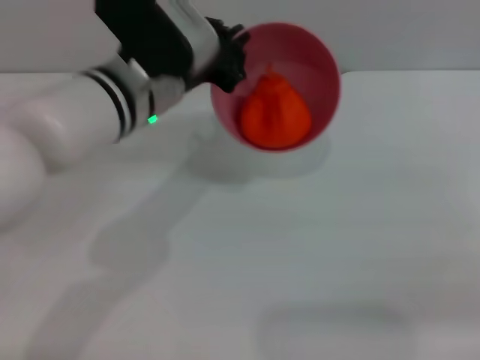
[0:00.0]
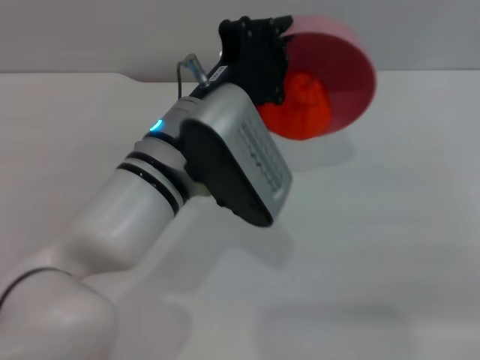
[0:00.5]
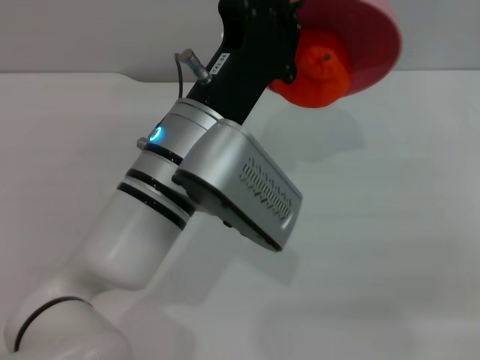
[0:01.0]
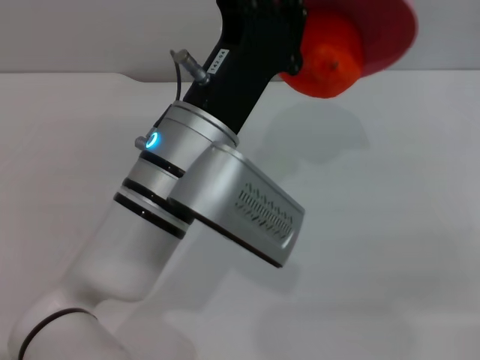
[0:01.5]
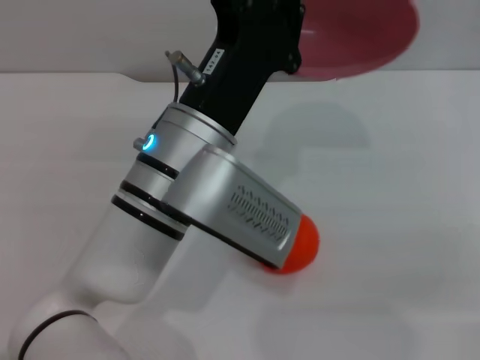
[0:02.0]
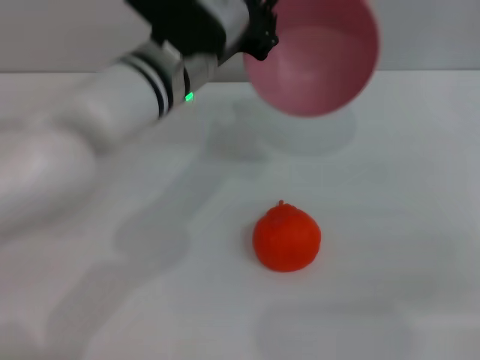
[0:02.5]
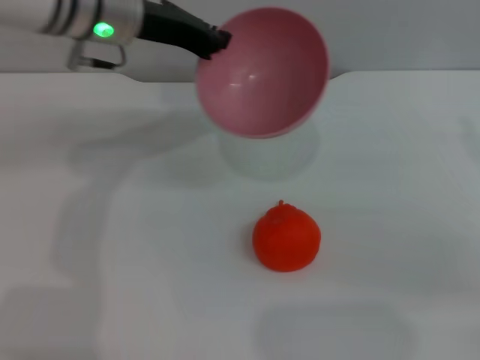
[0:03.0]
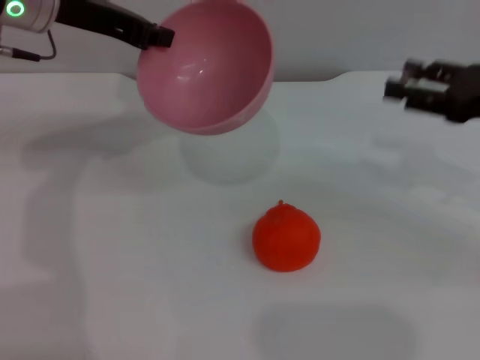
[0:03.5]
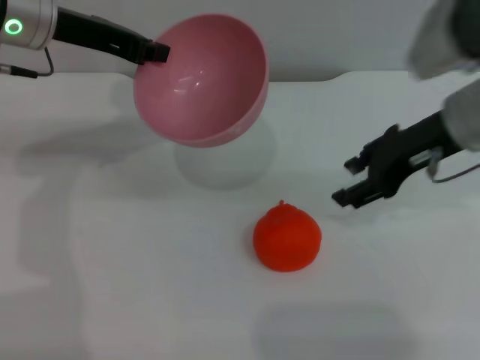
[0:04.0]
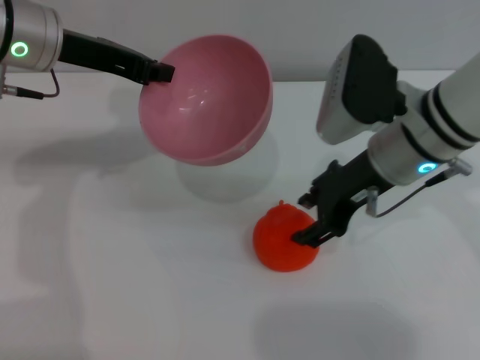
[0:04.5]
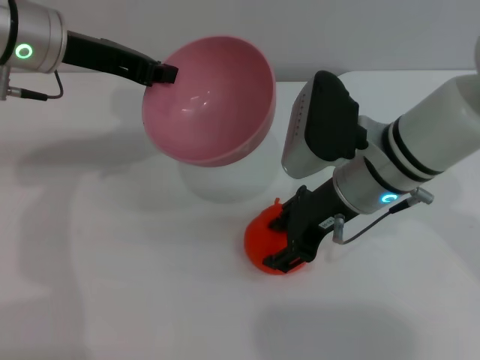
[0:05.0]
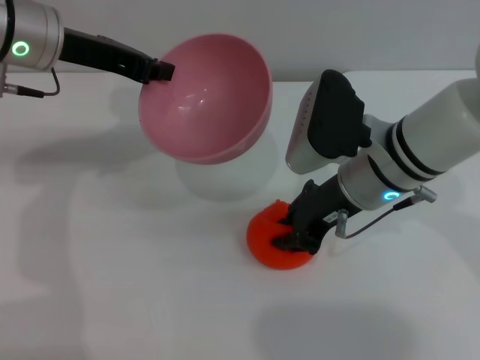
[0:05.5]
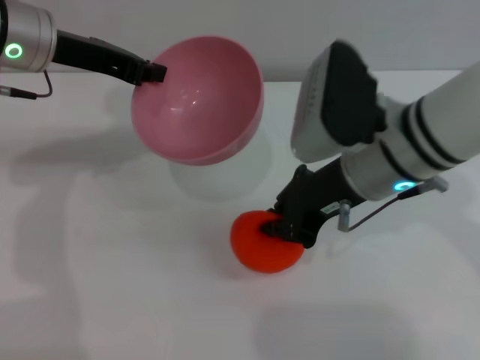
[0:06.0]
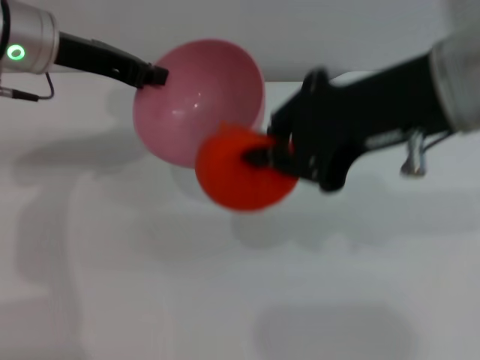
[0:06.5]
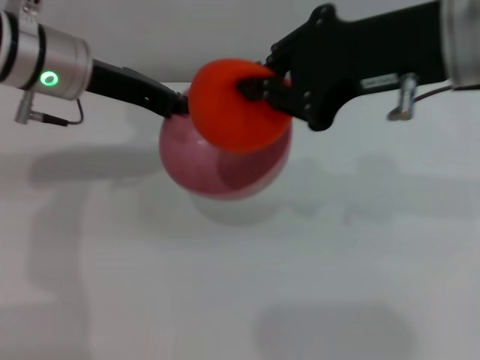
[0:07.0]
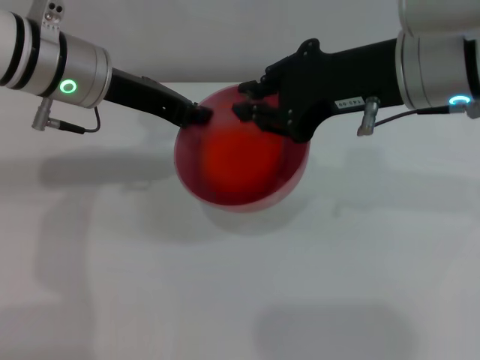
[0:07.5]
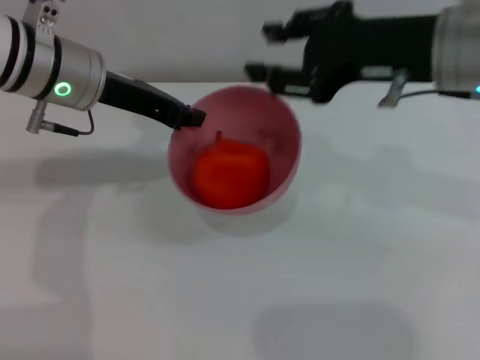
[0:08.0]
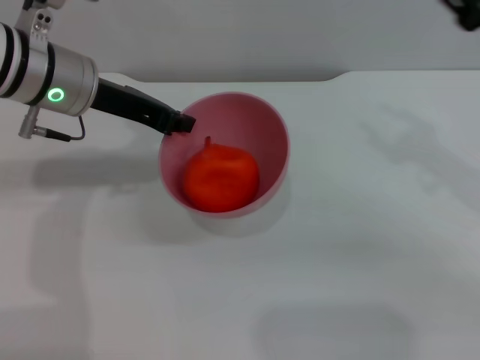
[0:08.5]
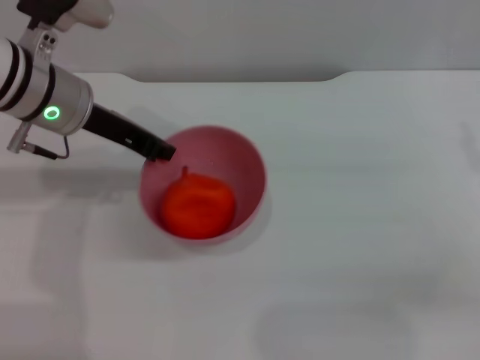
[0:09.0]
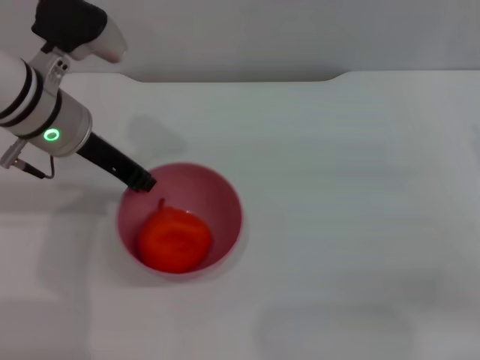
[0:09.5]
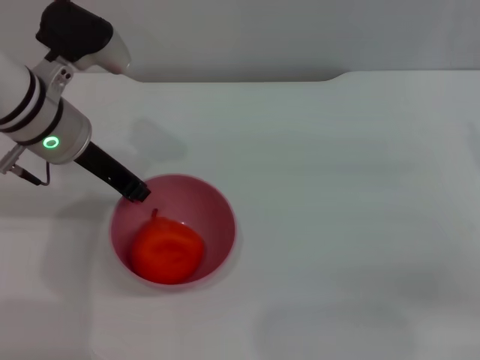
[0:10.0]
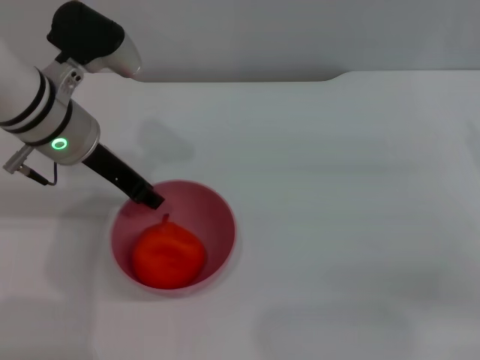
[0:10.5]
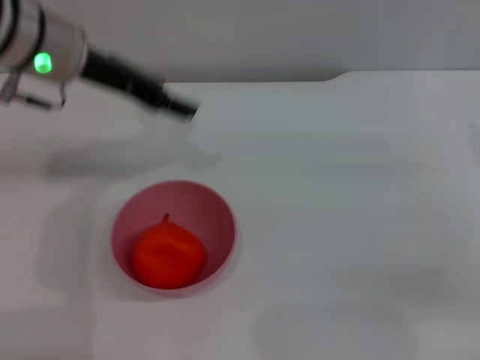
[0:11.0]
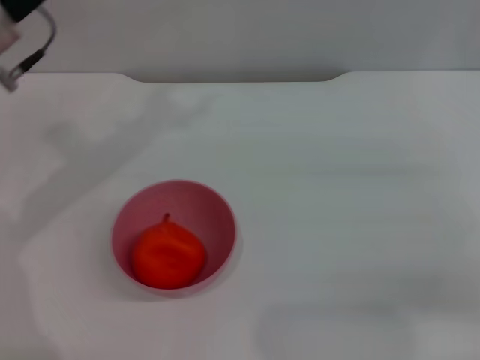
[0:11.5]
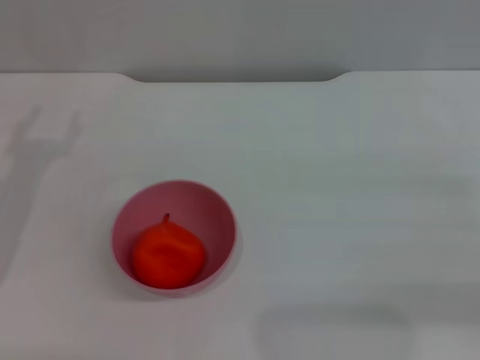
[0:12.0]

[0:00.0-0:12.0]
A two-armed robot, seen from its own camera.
Task of the whole recording: put the orange into the pink bowl and pour it out repeatedly.
Step, 0:00.0 to 0:02.0: Pour the orange out of the bowl.
Step, 0:02.5 to 0:06.5: Pick up the orange with the right gripper.
Step, 0:07.0 to 0:07.5: Place the orange into the bowl.
Step, 0:08.5 to 0:10.5: Place the bowl on the table.
0:00.0 to 0:02.0: The left gripper shifts about 10 cm backward.
0:02.0 to 0:04.0: The right gripper is displaced to the left and forward by approximately 15 cm, while the left gripper moves to the left, forward and upward, roughly 25 cm.
0:04.0 to 0:06.0: The right gripper heads to the left, covering roughly 10 cm, and closes.
0:06.0 to 0:08.0: The right gripper shifts some 10 cm upward and to the right, and opens its fingers.
0:08.0 to 0:10.0: The right gripper shifts approximately 20 cm to the right and downward.
0:10.0 to 0:12.0: The left gripper travels to the left and backward by about 15 cm, and opens its fingers.

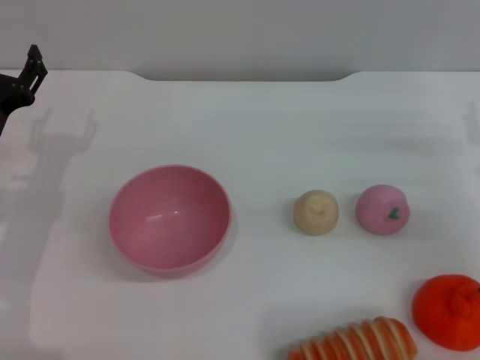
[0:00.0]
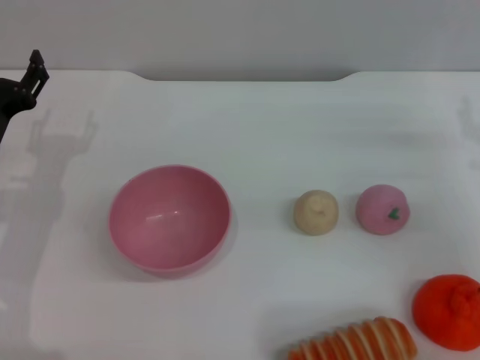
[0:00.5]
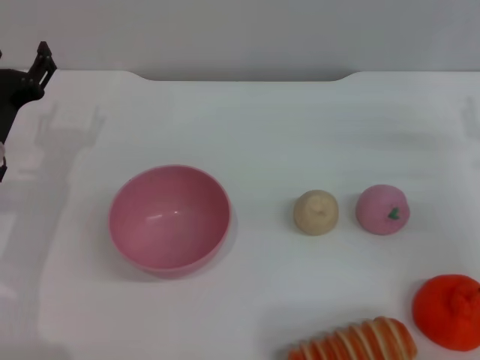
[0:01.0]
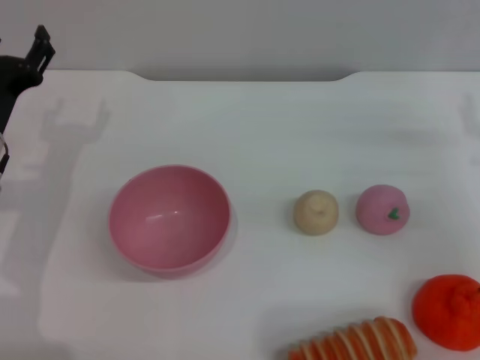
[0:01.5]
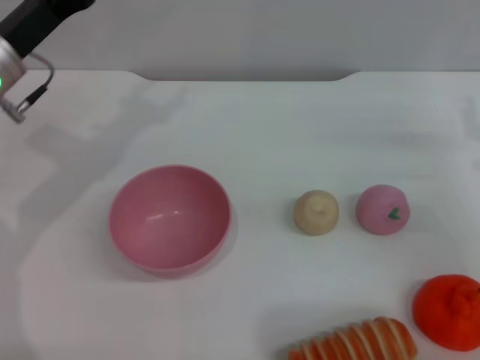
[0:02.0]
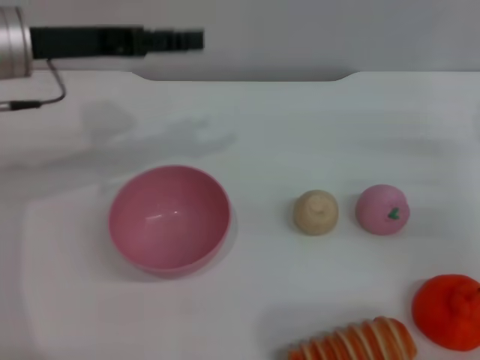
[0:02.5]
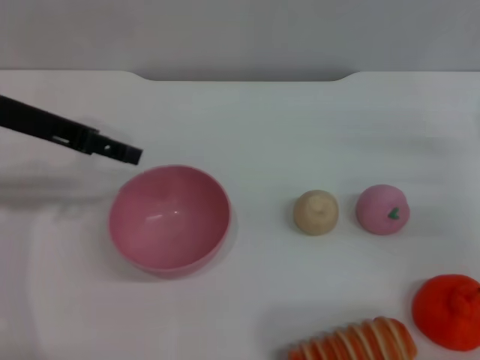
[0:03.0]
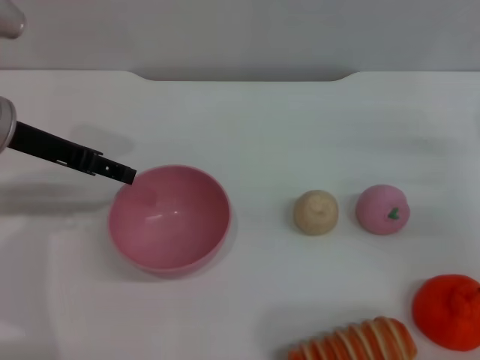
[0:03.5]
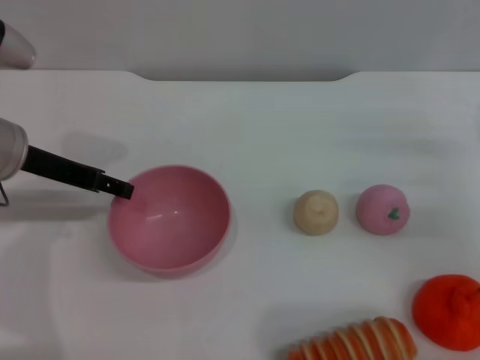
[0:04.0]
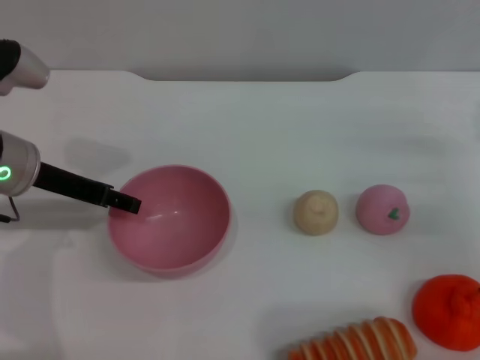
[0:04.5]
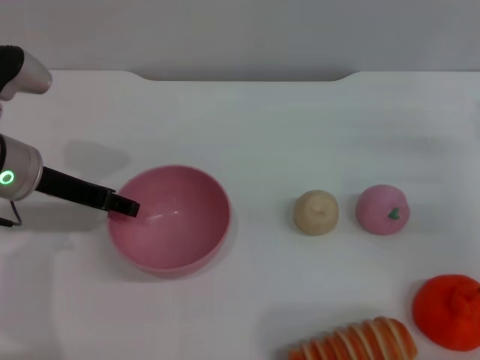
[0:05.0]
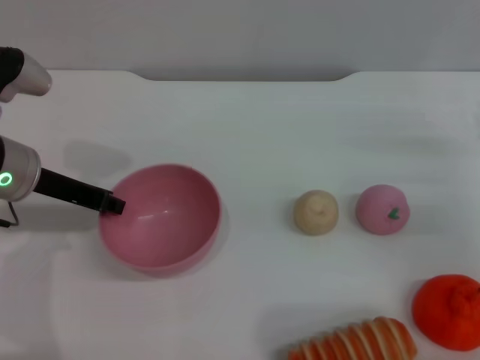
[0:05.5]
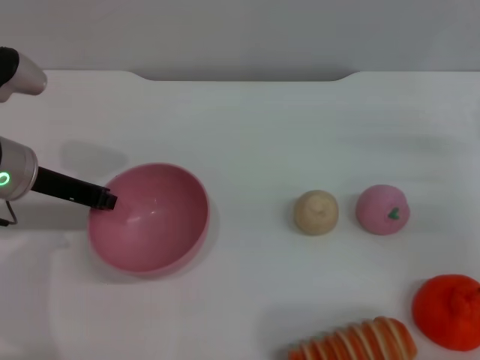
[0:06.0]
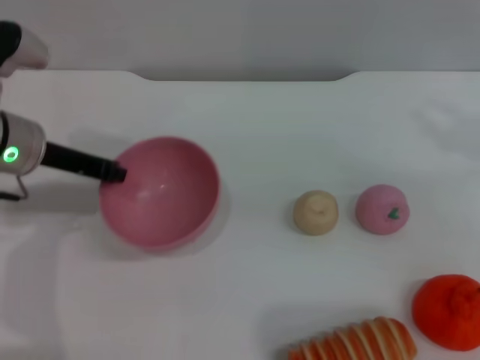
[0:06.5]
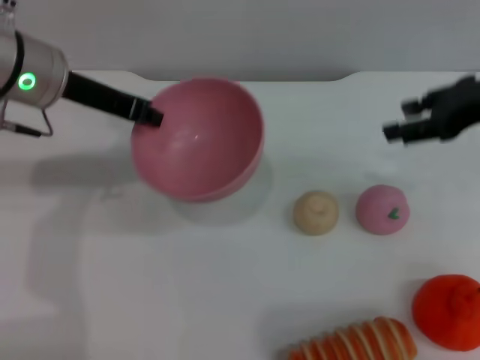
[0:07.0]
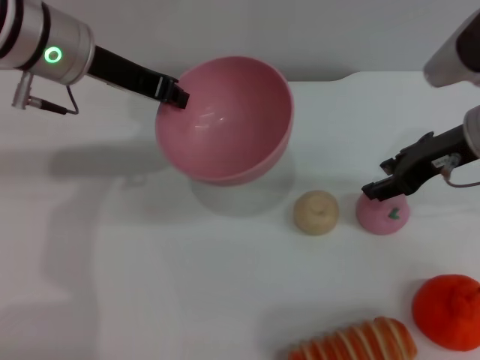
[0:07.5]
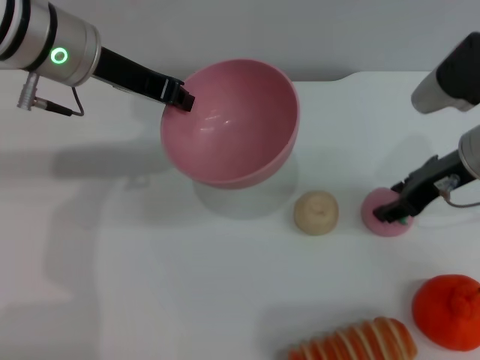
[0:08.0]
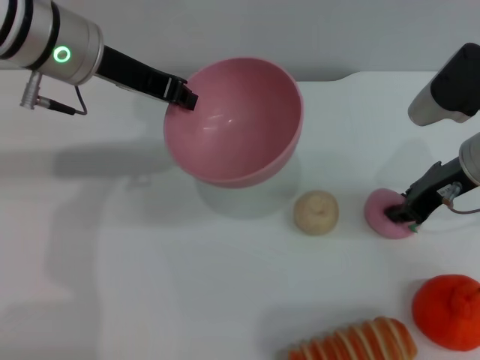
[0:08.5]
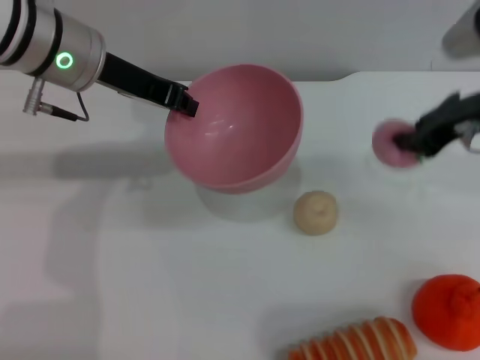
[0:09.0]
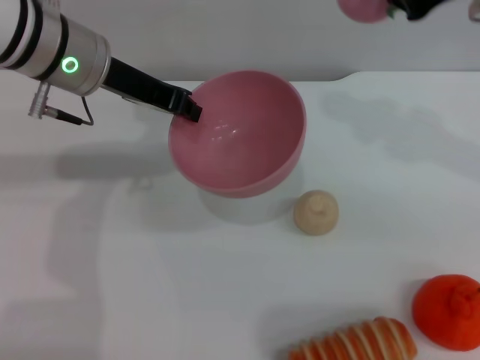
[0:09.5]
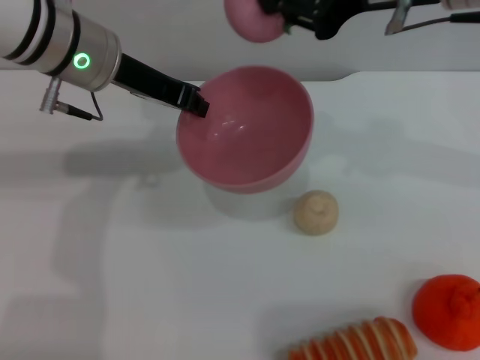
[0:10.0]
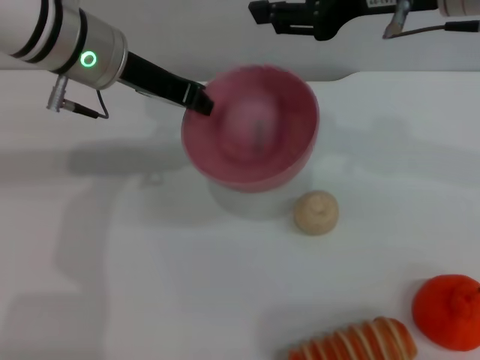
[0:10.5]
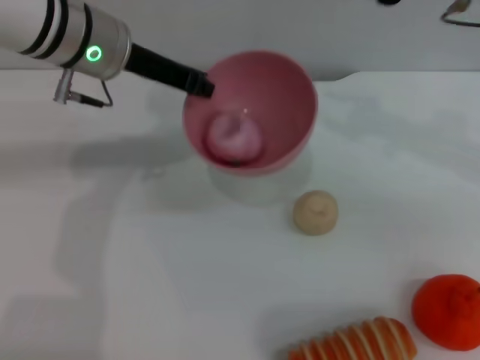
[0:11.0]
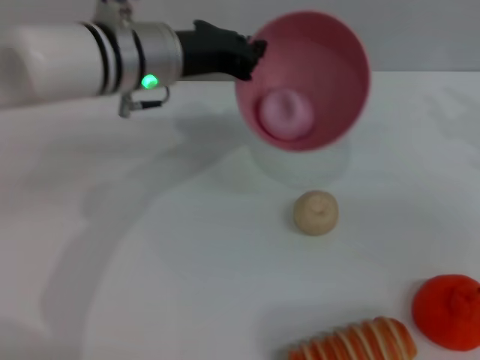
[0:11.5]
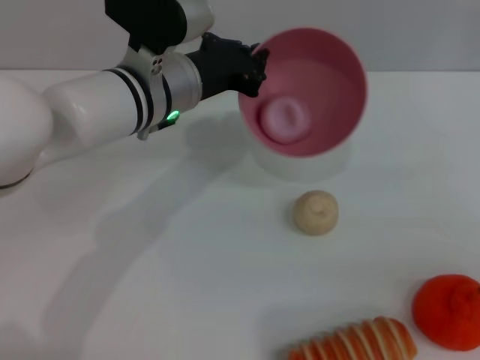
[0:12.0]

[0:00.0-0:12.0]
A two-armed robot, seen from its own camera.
Task of the whole recording: put the peach into the pink bowl and pour it out repeatedly.
Step, 0:00.0 to 0:06.5: Pick up the bowl with the left gripper.
Step, 0:07.0 to 0:09.0: Pick up the peach with the right gripper.
Step, 0:09.5 to 0:10.5: Place the peach into the bowl.
0:00.0 to 0:02.0: The left gripper is displaced upward by about 10 cm.
0:04.0 to 0:06.0: The left gripper closes up.
0:06.0 to 0:08.0: The left gripper goes some 10 cm upward and to the right; the right gripper is displaced to the left and upward by roughly 10 cm.
0:08.0 to 0:10.0: The right gripper is displaced upward and to the left by about 20 cm, and closes up.
0:10.0 to 0:12.0: The right gripper moves to the right, downward and backward, approximately 25 cm, and opens. Meanwhile the left gripper moves to the right and downward, roughly 10 cm.

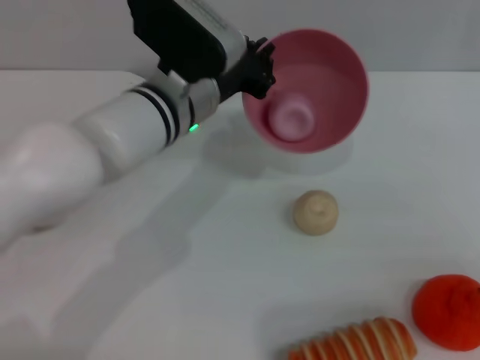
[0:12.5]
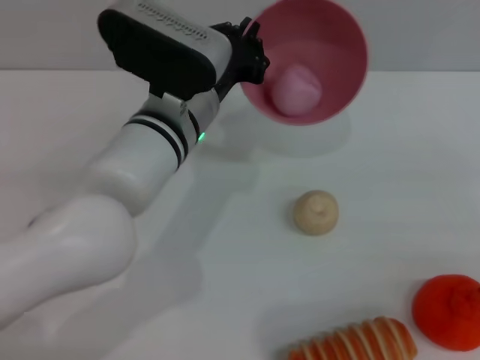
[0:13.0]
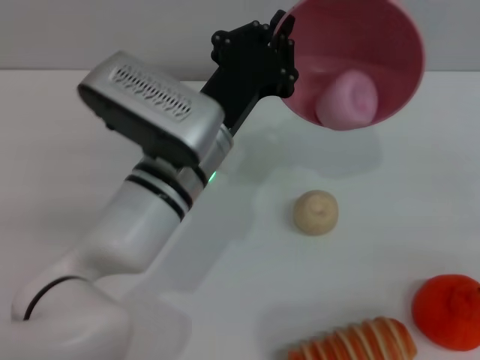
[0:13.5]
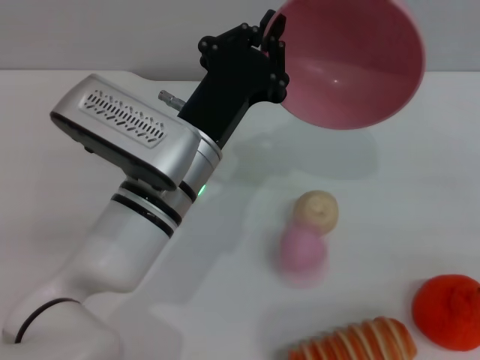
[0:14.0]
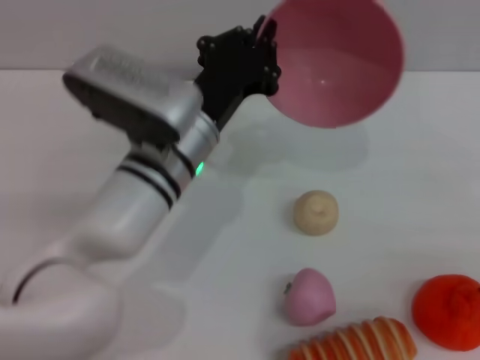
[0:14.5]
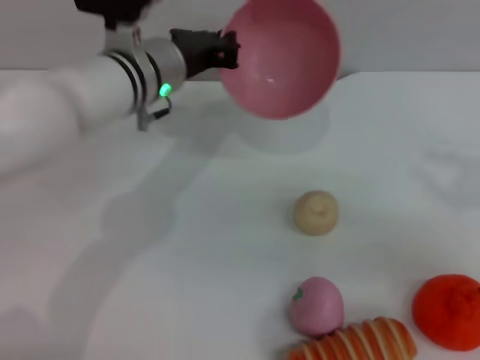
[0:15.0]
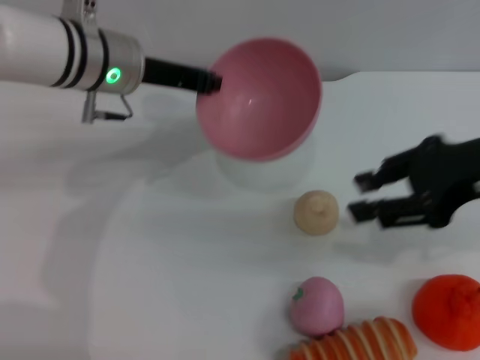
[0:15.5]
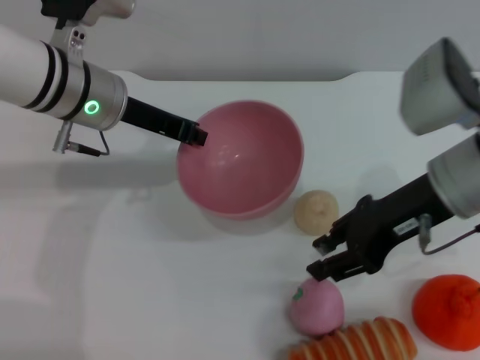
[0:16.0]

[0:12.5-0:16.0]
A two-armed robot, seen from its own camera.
Task of the whole recording: put the peach into the pink bowl and pour it out repeatedly.
0:12.5 to 0:14.5: The left gripper moves backward, approximately 5 cm, while the right gripper shifts about 5 cm to the right.
0:14.5 to 0:16.0: The right gripper is displaced to the left by roughly 25 cm; the left gripper moves to the left, forward and upward, about 15 cm.
